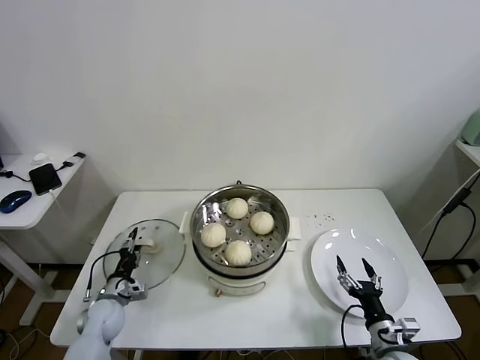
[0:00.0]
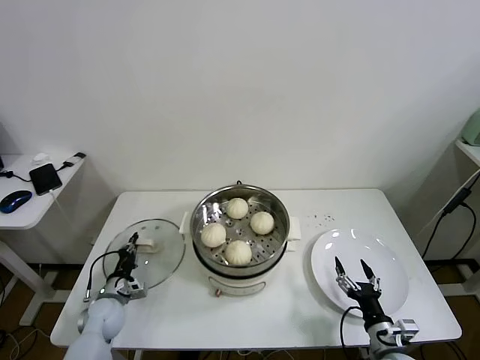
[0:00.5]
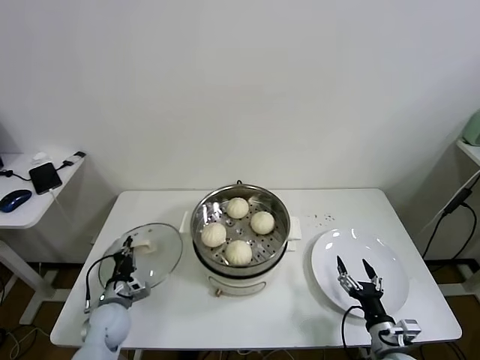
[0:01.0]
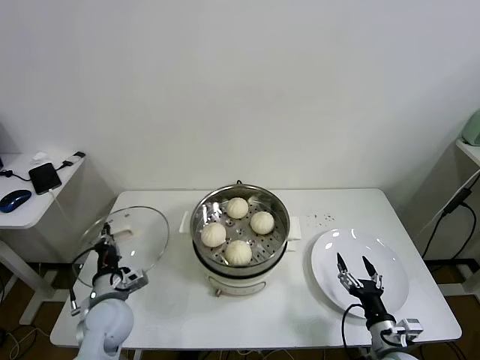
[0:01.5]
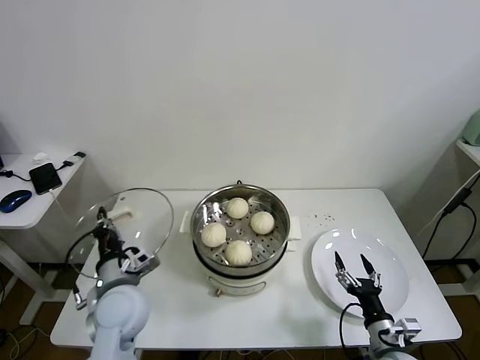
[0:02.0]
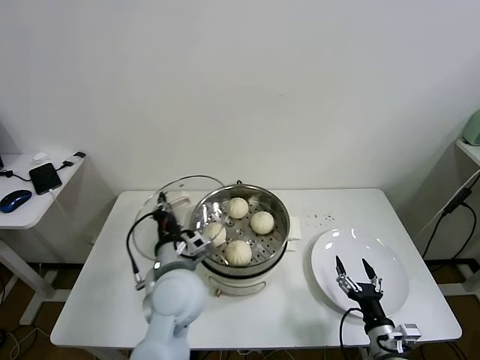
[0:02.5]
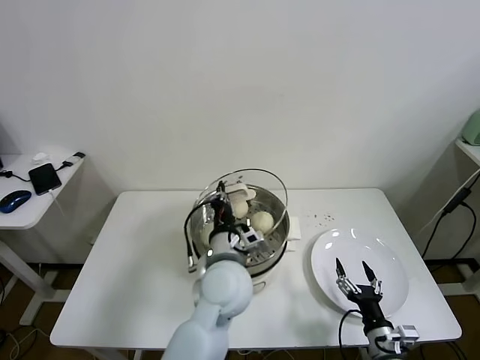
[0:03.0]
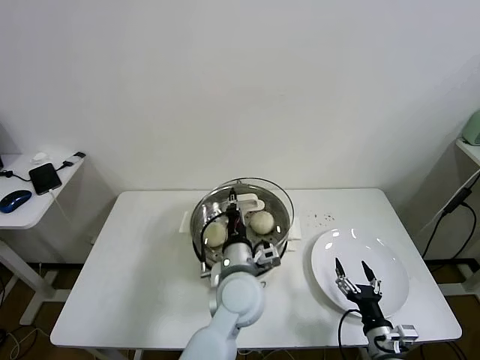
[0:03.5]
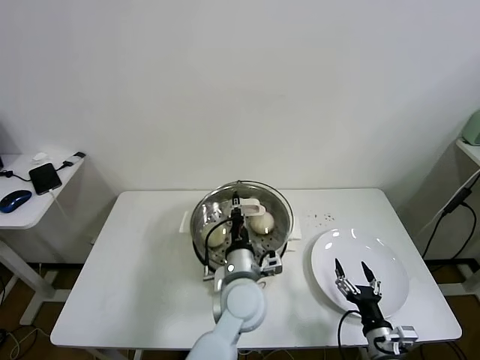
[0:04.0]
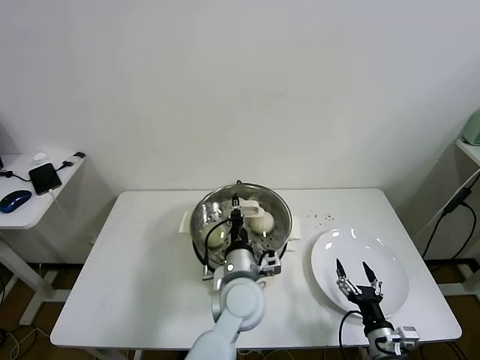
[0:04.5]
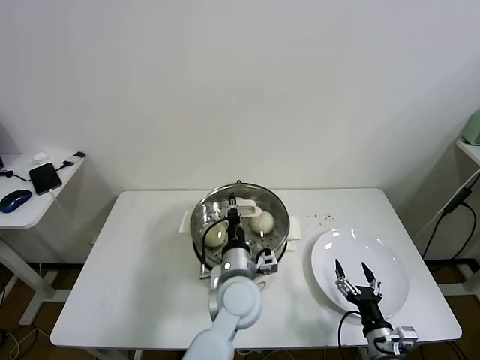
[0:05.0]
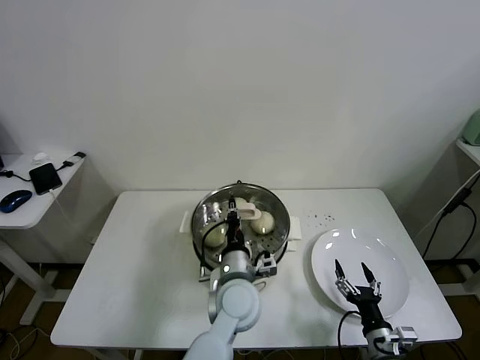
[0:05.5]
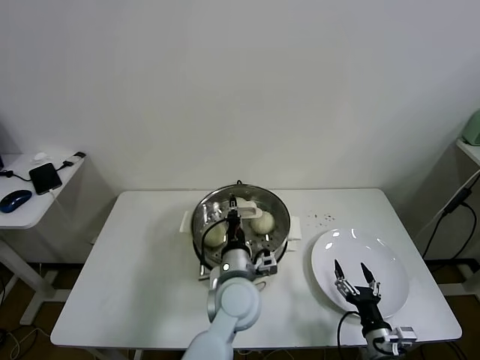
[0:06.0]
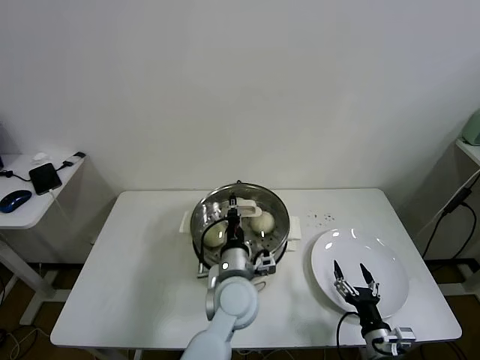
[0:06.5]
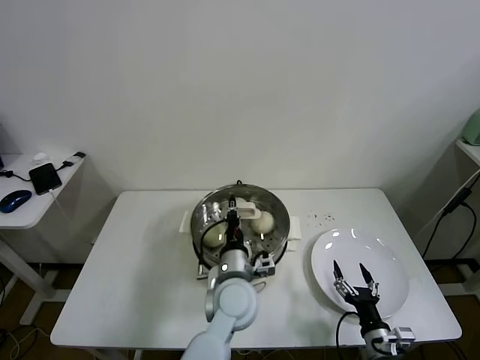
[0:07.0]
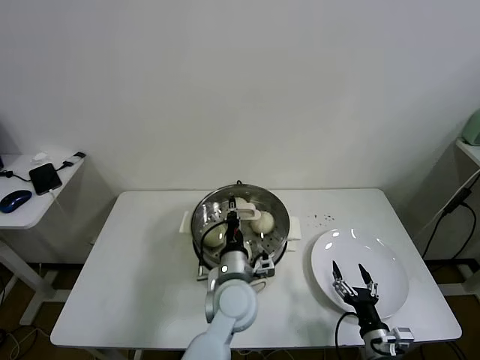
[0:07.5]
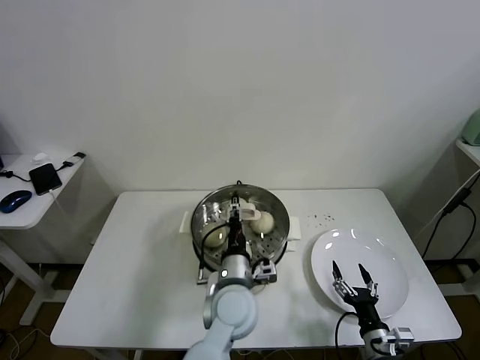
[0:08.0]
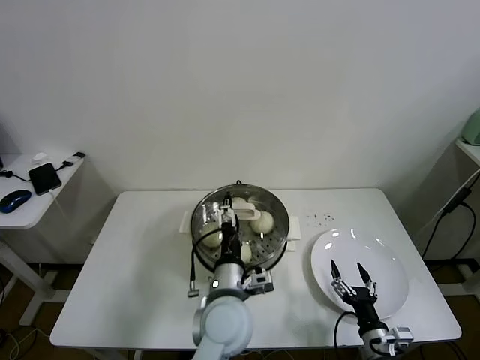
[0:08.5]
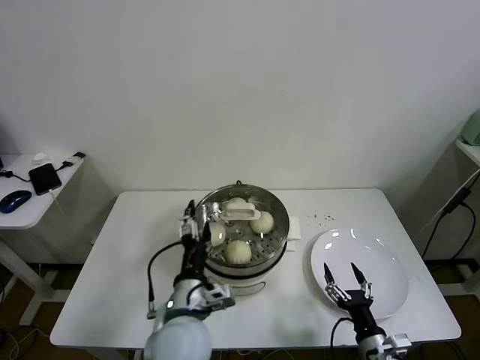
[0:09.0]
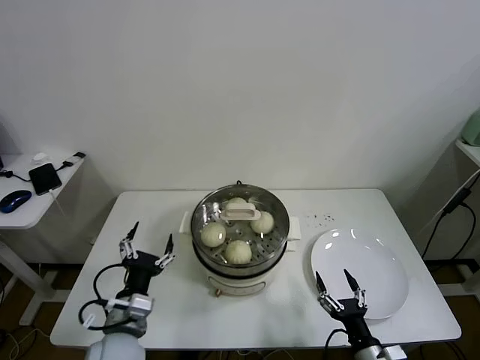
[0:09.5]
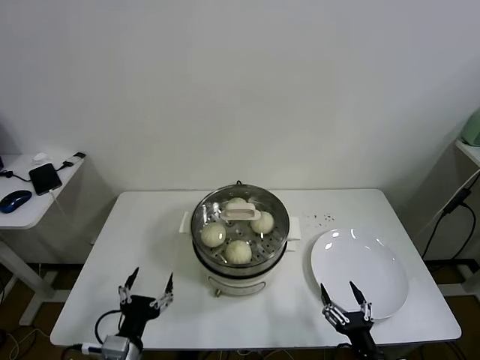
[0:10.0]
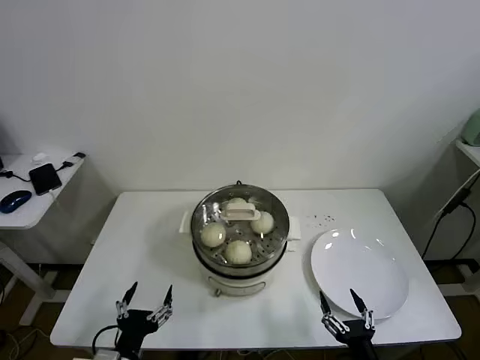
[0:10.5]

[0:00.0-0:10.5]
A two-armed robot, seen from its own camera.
Task of the whole recording: take steamed baozi put them in steamer.
Step, 0:00.5 to 0:07.5: Place the pot lid on the steamer with left gripper.
0:00.0 to 0:02.0: The left gripper travels upward and to the right by approximately 20 cm, and closes its fingers.
0:02.0 to 0:04.0: The left gripper travels to the right by about 25 cm.
0:06.5 to 0:08.5: The left gripper opens up.
0:08.5 to 0:10.5: The right gripper shifts some 10 cm backward. The left gripper is displaced to the left and backward by some 25 cm.

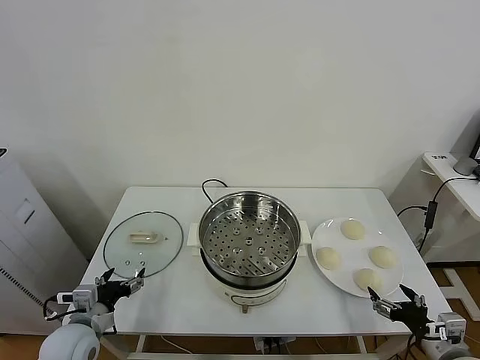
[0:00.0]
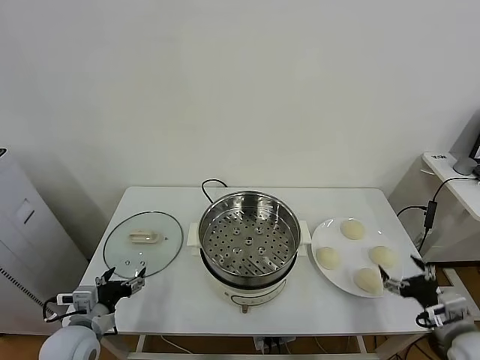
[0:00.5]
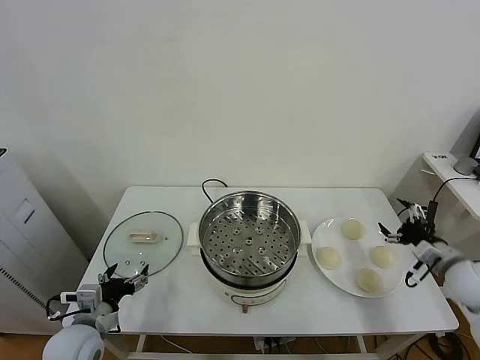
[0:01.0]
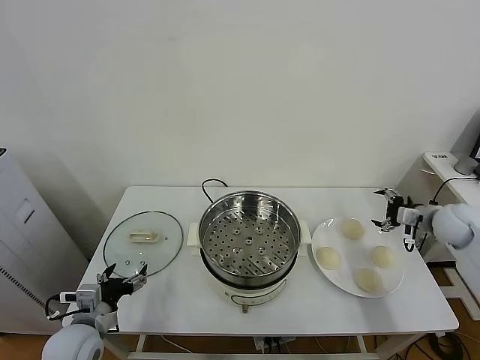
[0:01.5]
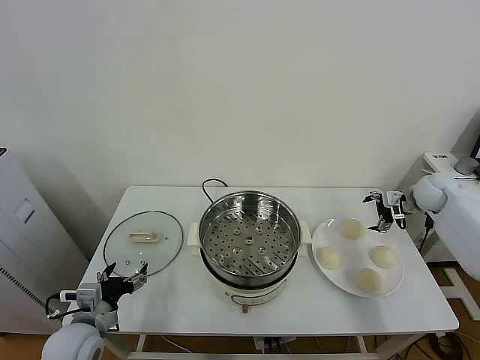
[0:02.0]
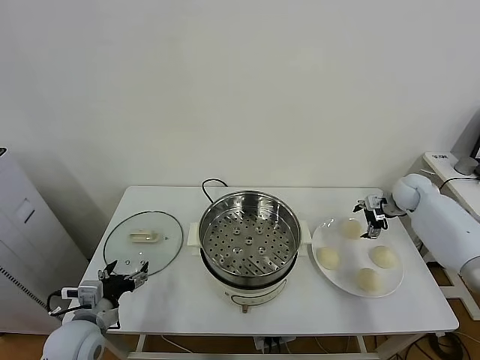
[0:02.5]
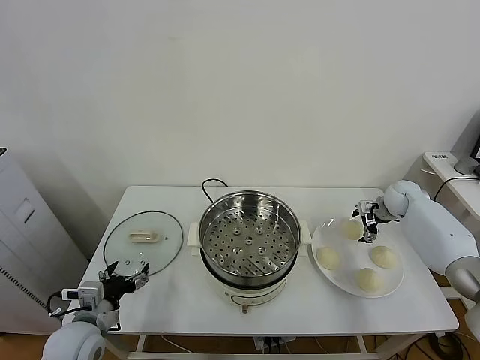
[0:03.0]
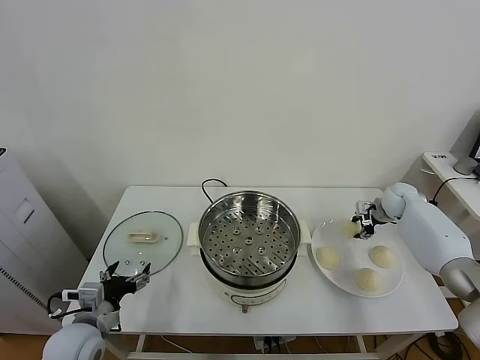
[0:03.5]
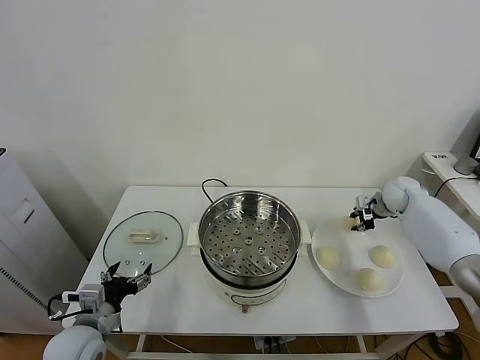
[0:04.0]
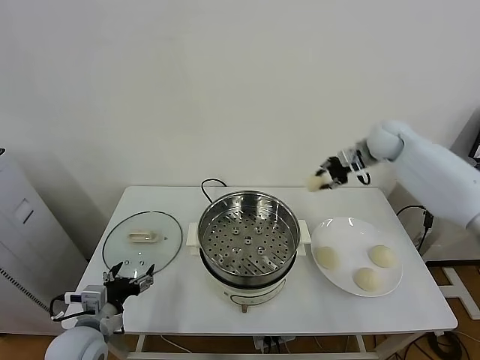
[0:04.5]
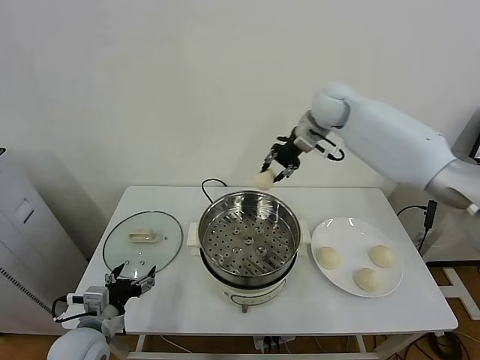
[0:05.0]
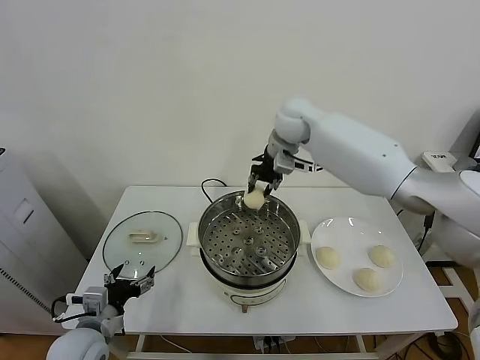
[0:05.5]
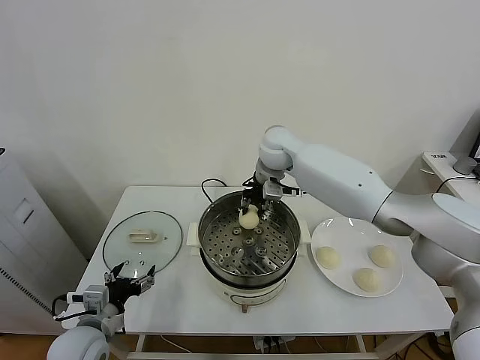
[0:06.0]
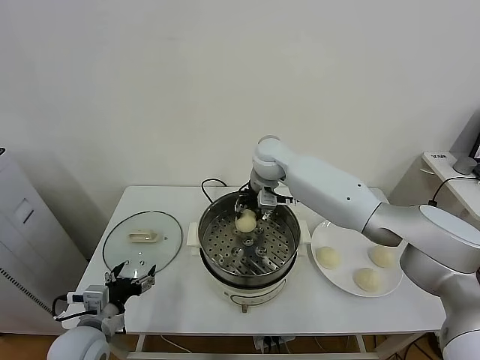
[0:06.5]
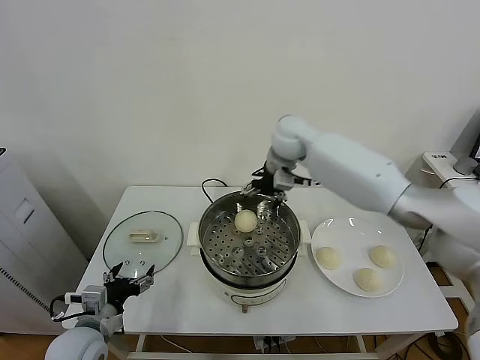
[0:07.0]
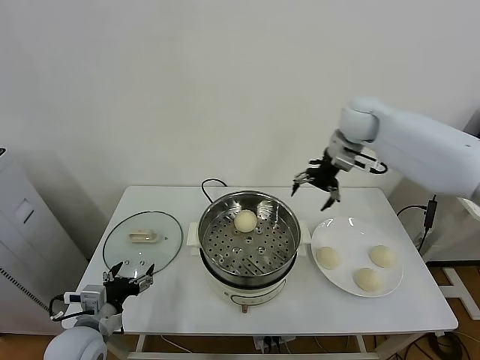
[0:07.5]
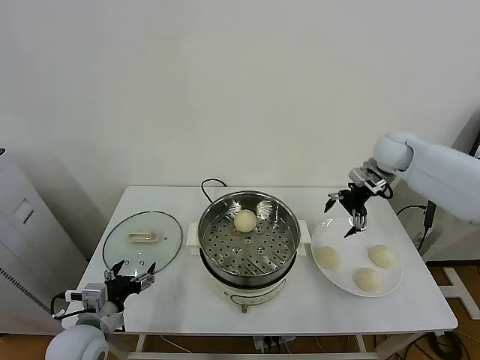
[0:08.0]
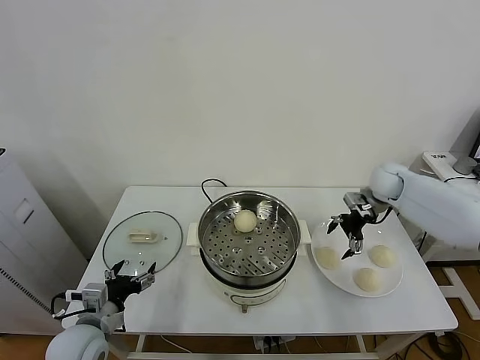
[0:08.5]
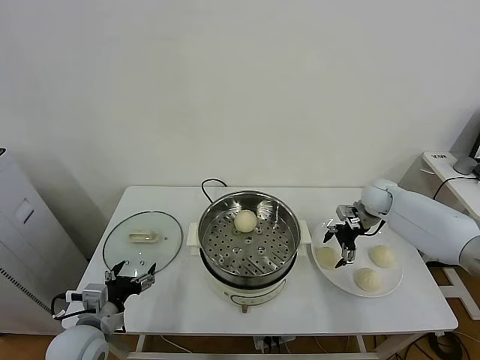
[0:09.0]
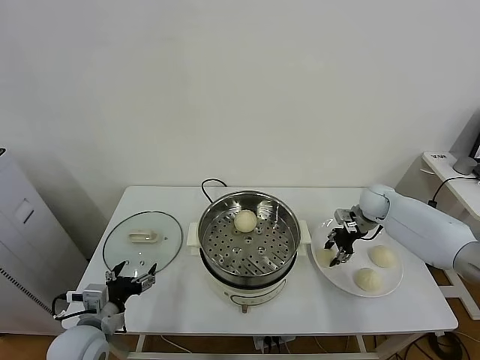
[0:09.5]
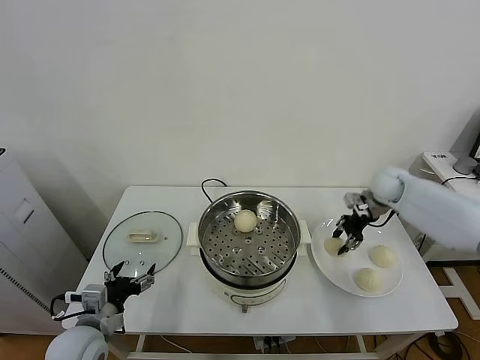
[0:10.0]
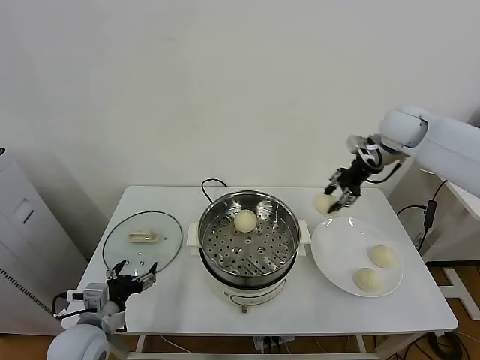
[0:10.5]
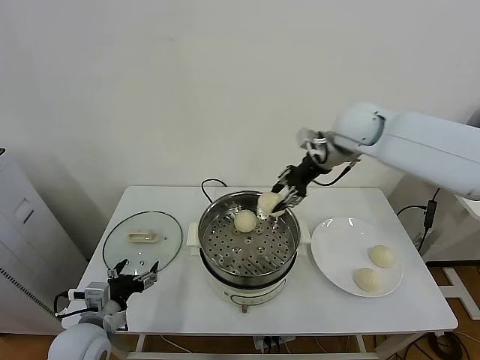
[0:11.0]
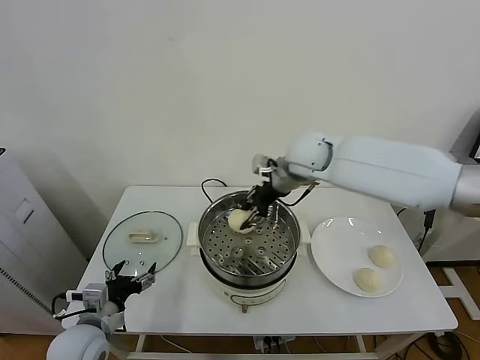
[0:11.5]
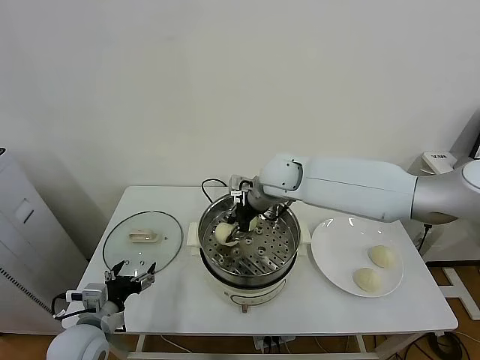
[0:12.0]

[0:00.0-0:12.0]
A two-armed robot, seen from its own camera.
Task of the whole recording: take steamed baozi put them in steamer.
Step, 0:00.0 to 0:03.0: Grasp the baozi in the plate with right gripper.
Step, 0:03.5 to 0:06.5: Place the baozi on the steamer with right gripper.
Step, 0:07.0 to 0:09.0: Grasp the baozi in the plate with right gripper.
0:02.0 to 0:04.0: The right gripper ends up roughly 5 cm from where it was, and closes up.
0:04.0 to 0:06.0: The right gripper moves to the left, about 35 cm.
0:06.0 to 0:08.0: The right gripper is displaced to the right by approximately 30 cm, and opens up.
0:08.0 to 0:10.0: The right gripper moves about 15 cm downward and comes back, and closes its fingers.
0:10.0 to 0:12.0: The right gripper goes approximately 30 cm to the left.

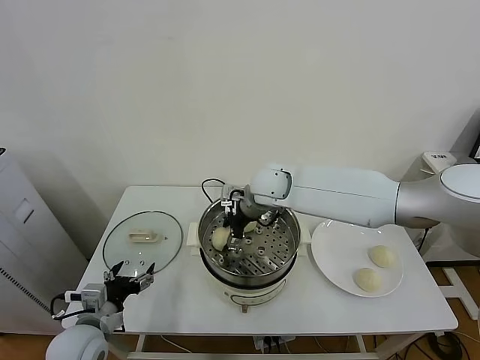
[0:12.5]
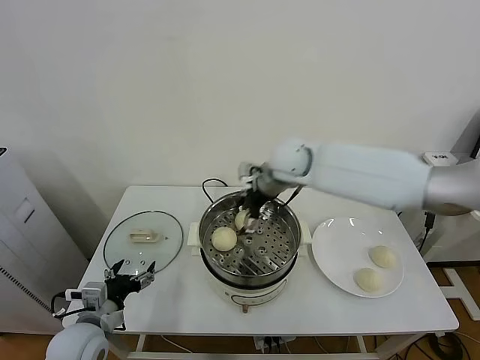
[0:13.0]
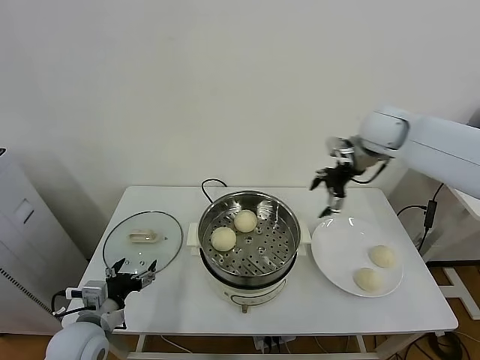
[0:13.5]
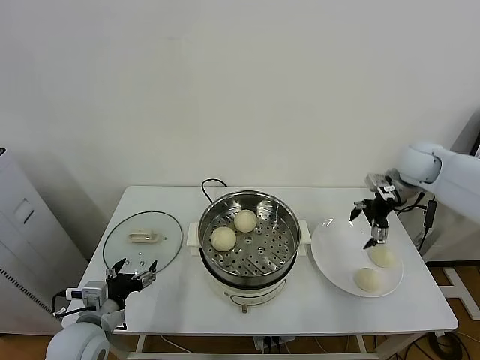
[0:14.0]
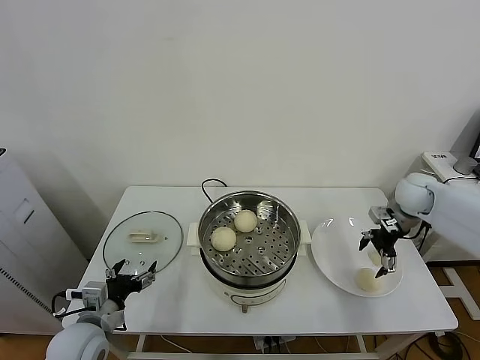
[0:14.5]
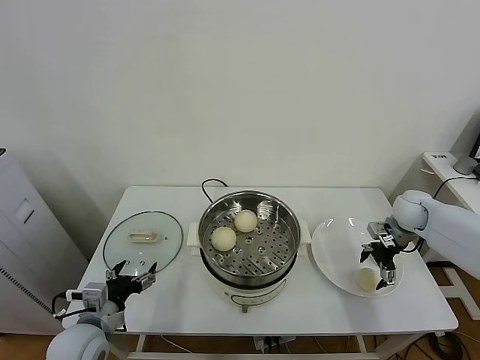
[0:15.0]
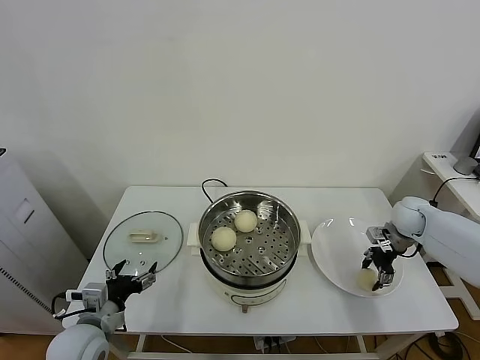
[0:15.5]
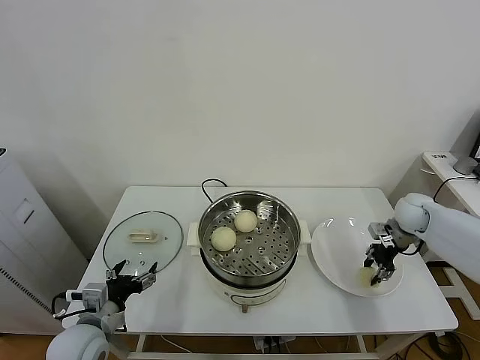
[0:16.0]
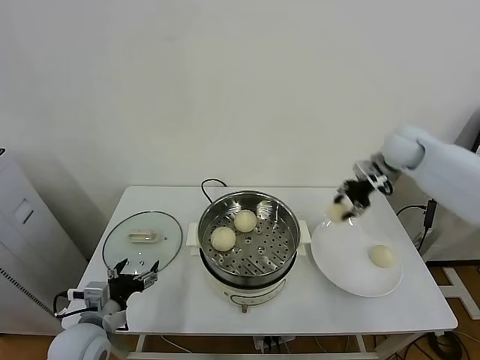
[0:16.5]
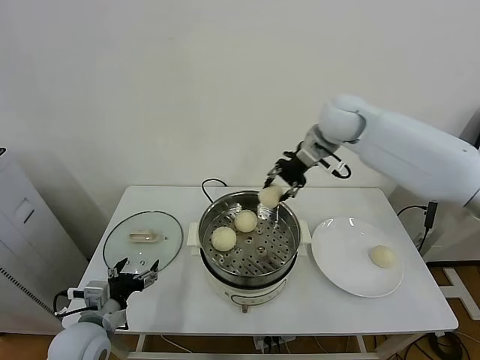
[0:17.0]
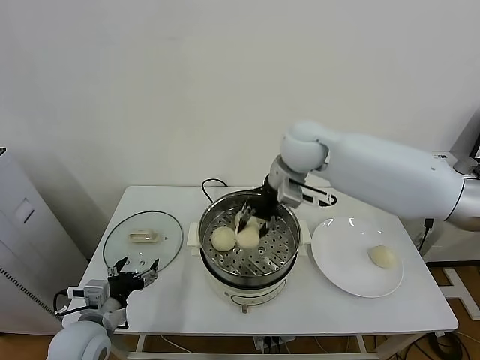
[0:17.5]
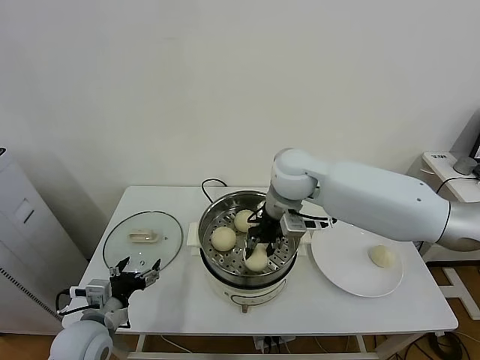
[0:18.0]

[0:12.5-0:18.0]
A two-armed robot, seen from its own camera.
Task of the whole recording: take steamed baozi put them in steamer.
Step, 0:13.0 to 0:15.5: Grasp the baozi in the plate with right gripper.
0:12.5 to 0:14.5: The right gripper goes approximately 35 cm to the right.
0:14.5 to 0:16.0: The right gripper closes up.
0:16.0 to 0:18.0: The right gripper shifts approximately 35 cm to the left and upward.
